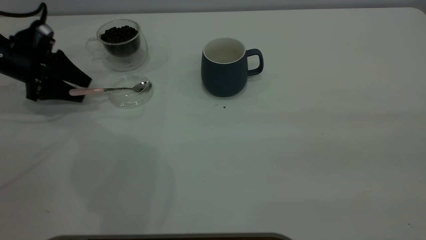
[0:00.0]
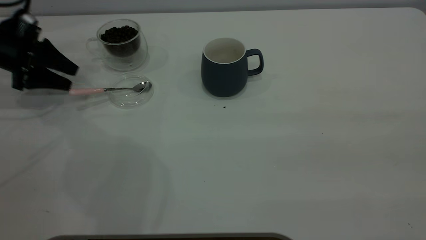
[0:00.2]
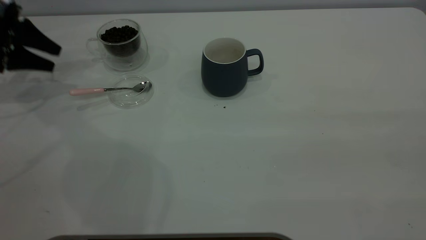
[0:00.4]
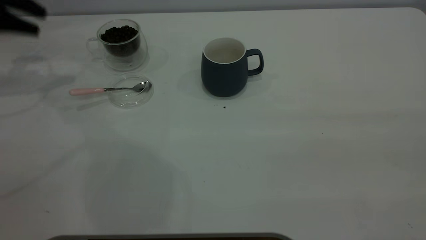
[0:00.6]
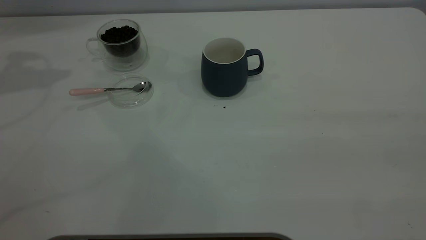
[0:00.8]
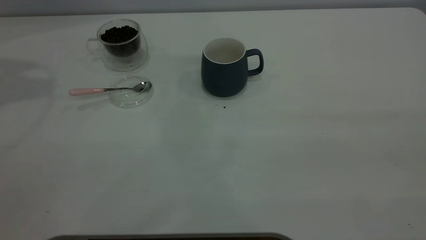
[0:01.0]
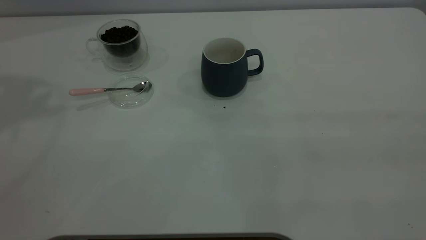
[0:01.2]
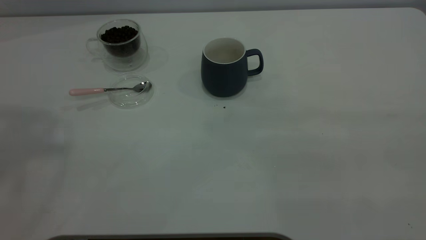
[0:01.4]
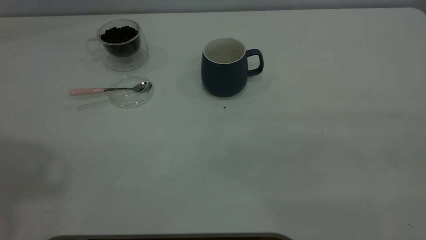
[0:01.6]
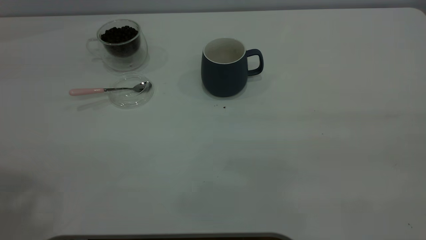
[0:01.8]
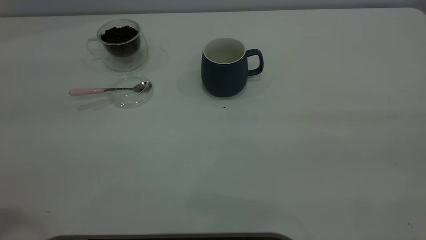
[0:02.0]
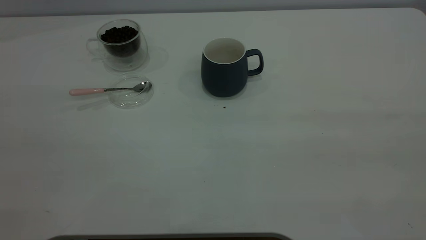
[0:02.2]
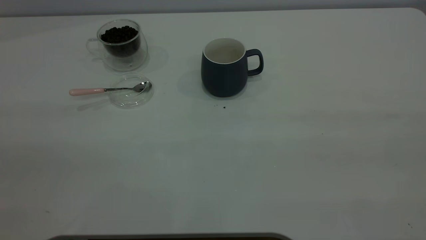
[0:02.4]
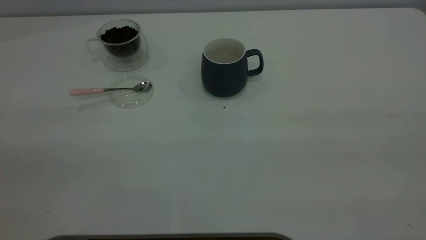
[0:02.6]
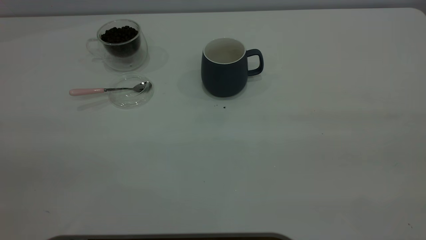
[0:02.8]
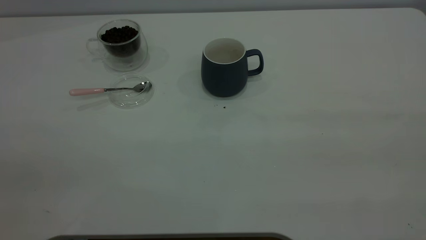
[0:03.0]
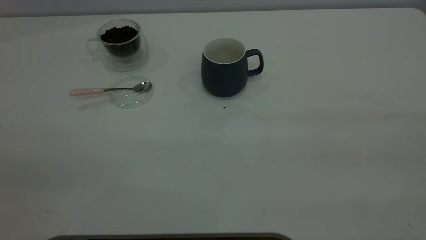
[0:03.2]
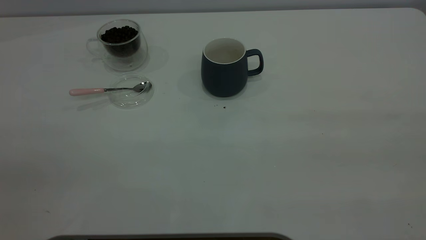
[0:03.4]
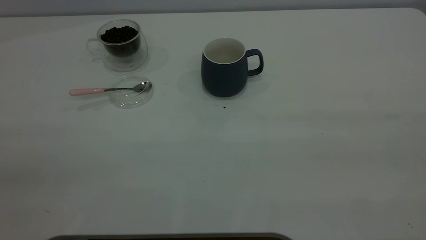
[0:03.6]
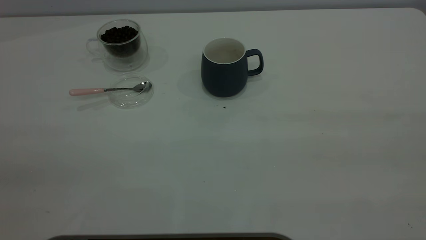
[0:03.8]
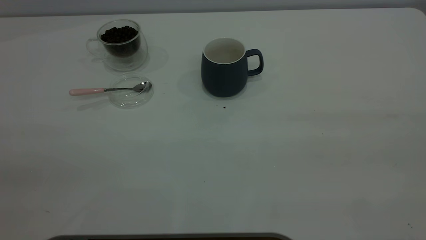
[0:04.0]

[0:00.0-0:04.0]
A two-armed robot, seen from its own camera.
Task of the whole recording: the right gripper place the grey cup in the center of the table, the left gripper take the pink spoon from the cup lid and scoop out the coffee beans from the coffee cup and put them into the grey cup, the left gripper put the spoon back into the cup lid.
0:00.0 to 0:01.4: The left gripper travels upward by roughly 50 cm.
